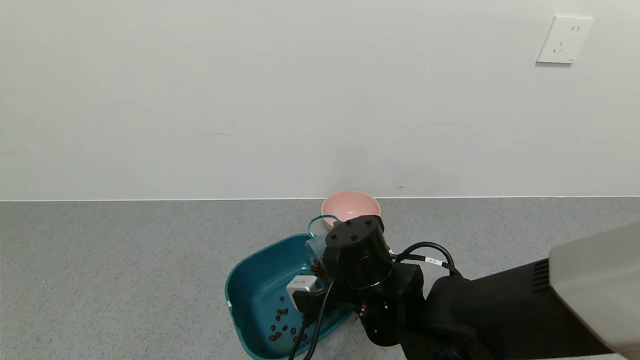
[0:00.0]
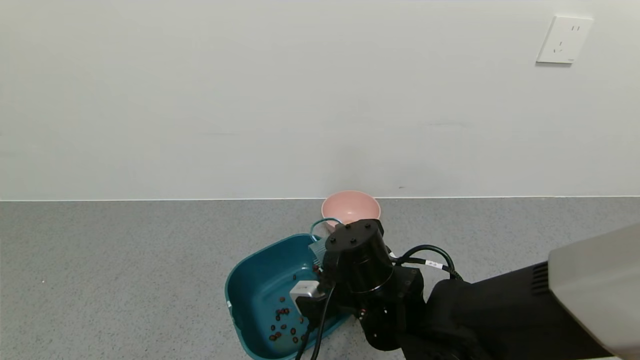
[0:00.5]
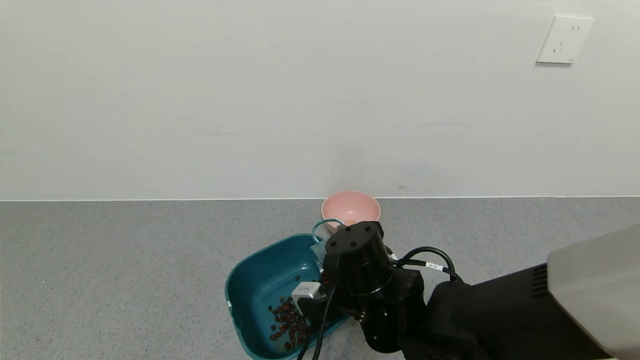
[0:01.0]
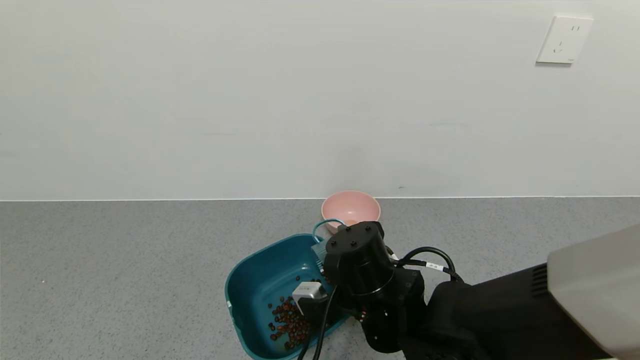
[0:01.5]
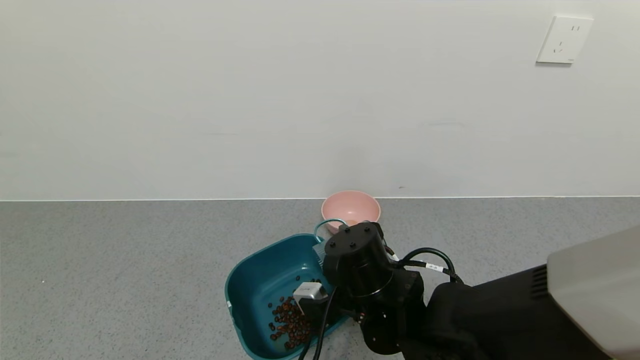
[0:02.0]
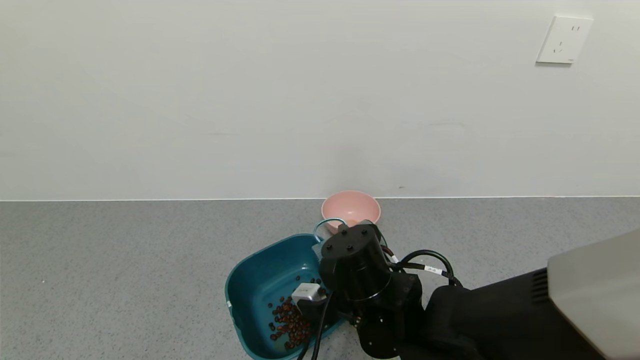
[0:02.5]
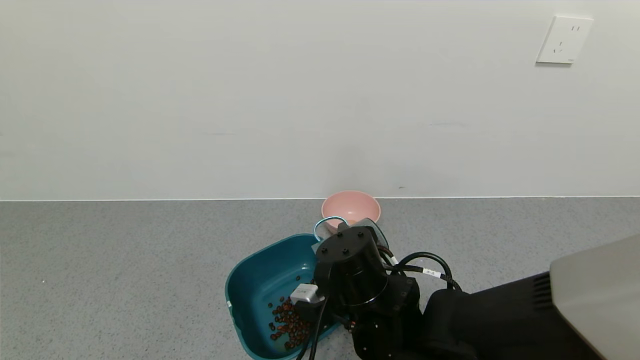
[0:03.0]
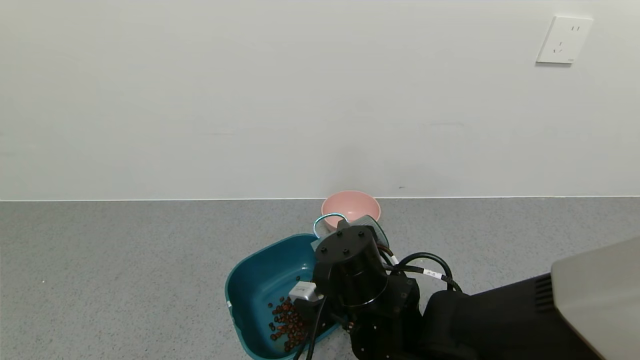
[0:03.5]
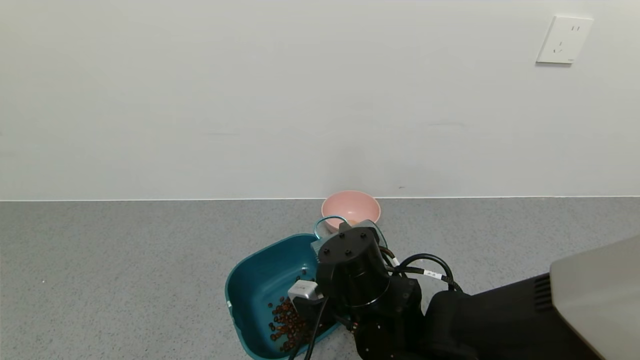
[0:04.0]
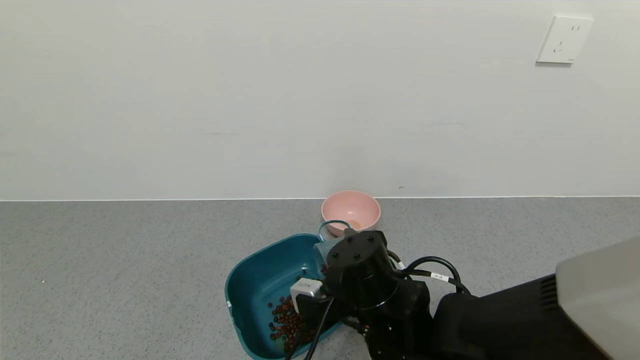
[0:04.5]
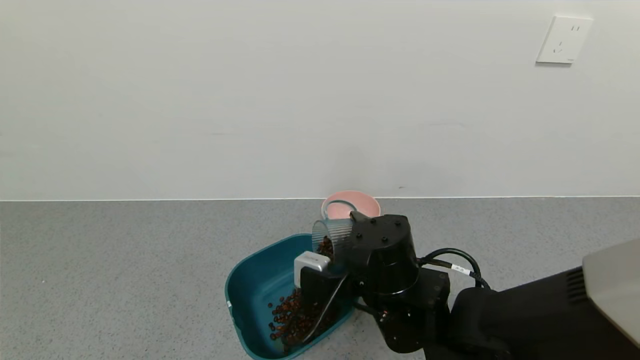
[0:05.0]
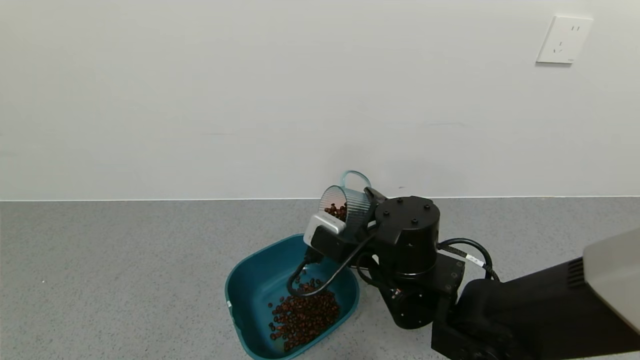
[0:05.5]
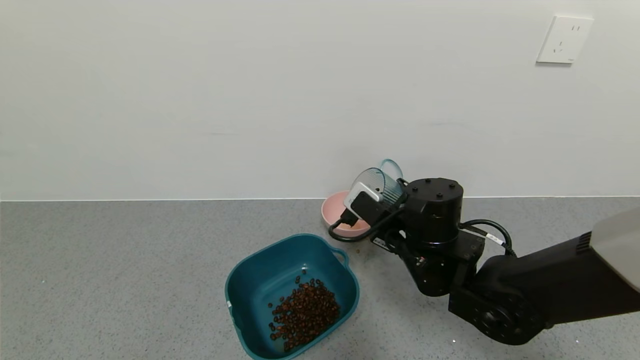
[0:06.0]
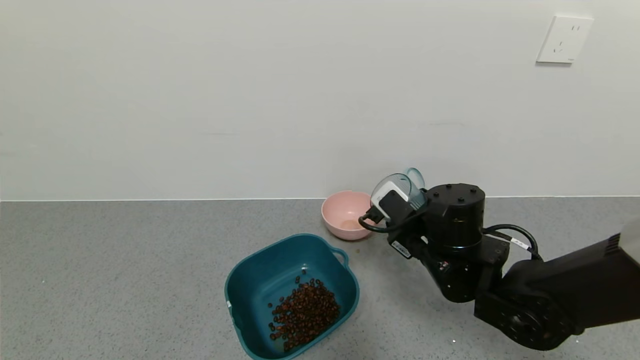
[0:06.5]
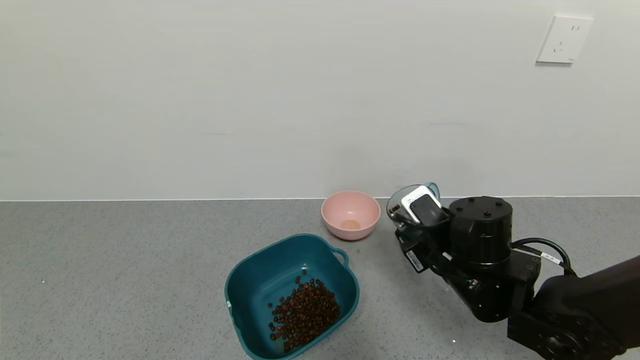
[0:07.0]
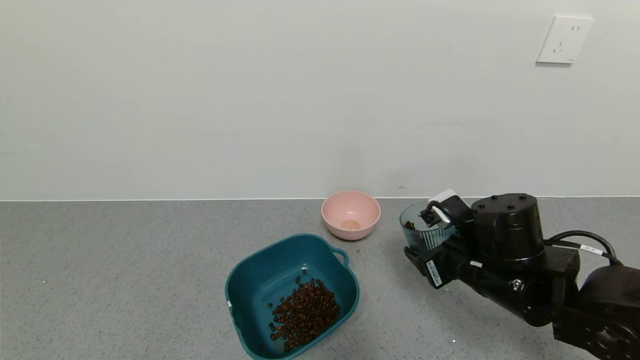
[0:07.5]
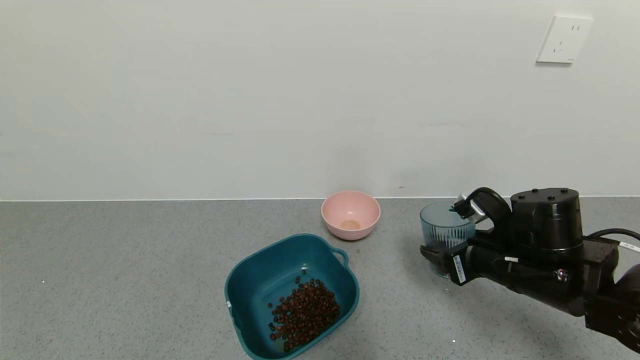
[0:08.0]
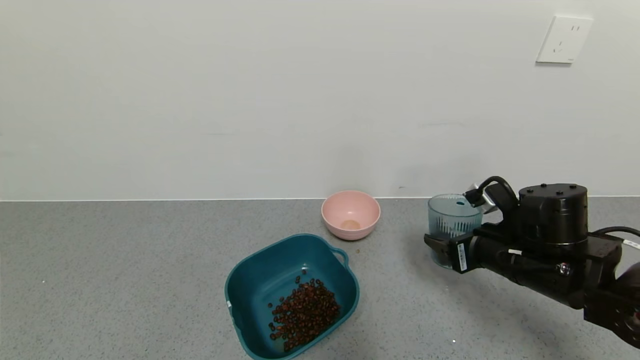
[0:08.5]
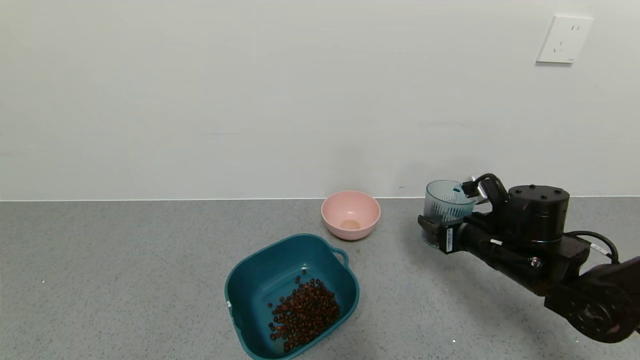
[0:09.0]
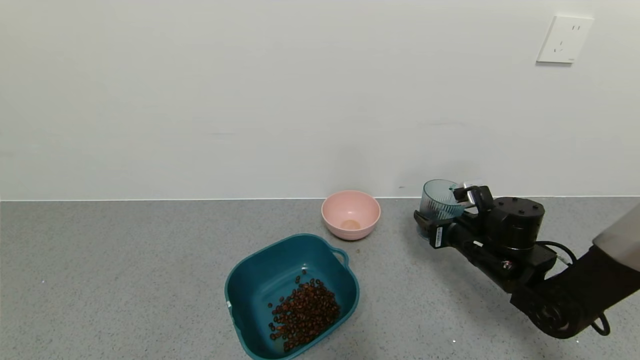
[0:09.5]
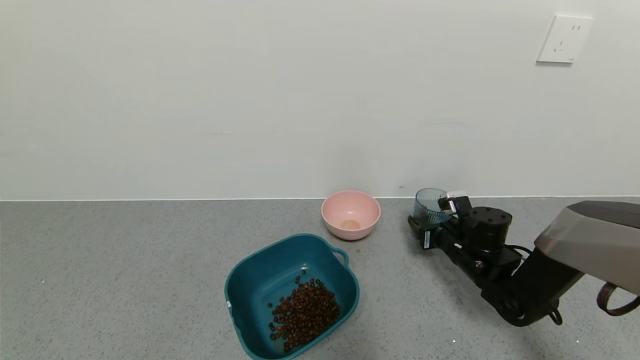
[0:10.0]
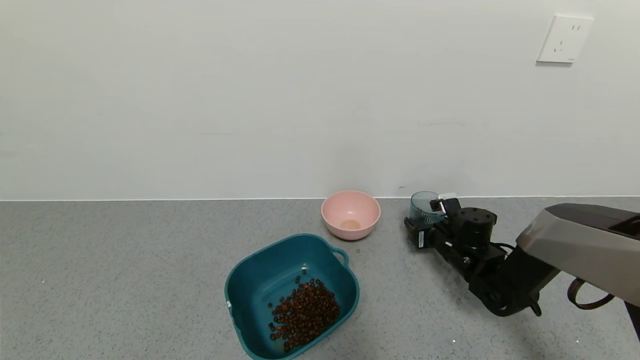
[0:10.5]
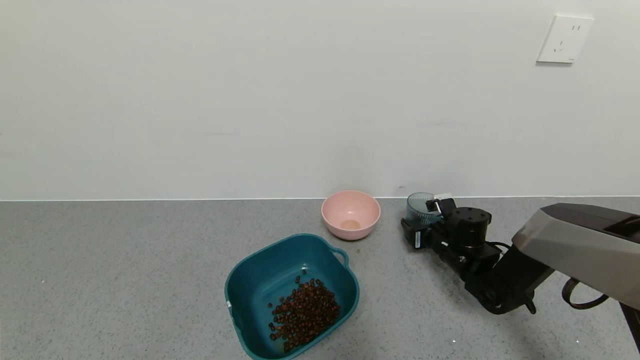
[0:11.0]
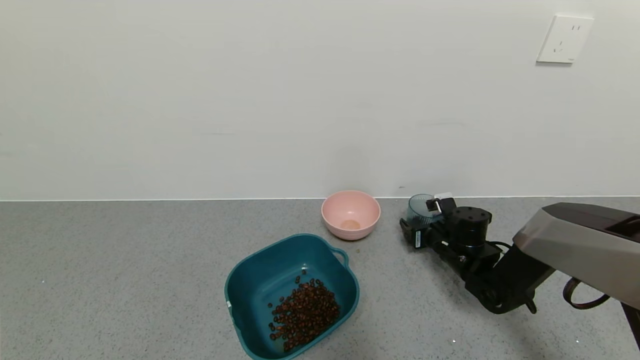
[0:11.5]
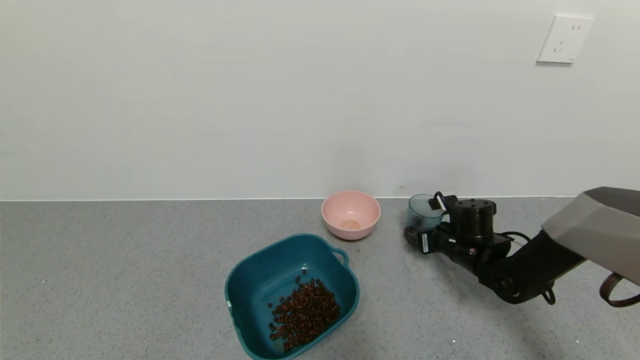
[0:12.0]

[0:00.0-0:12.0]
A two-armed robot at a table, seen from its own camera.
Task of the whole recording: use a gripper to pick up the cup and pour the solid into a bowl or tray.
Step, 0:00.0 to 0:06.5: Pour the coffee beans into the green bowl with the right gripper.
0:00.0 to 0:04.0: There are only small adjustments of the grippers.
0:04.0 to 0:06.0: The right gripper travels to the right and forward by about 10 cm.
0:06.0 to 0:08.0: The right gripper travels to the right by roughly 10 cm.
0:08.0 to 0:10.0: The right gripper moves forward and downward, about 15 cm.
0:10.0 to 0:12.0: The right gripper opens up.

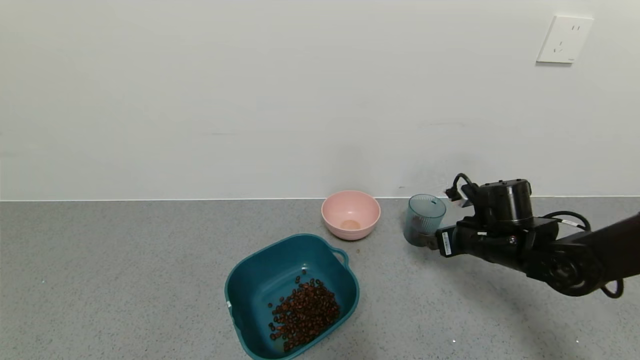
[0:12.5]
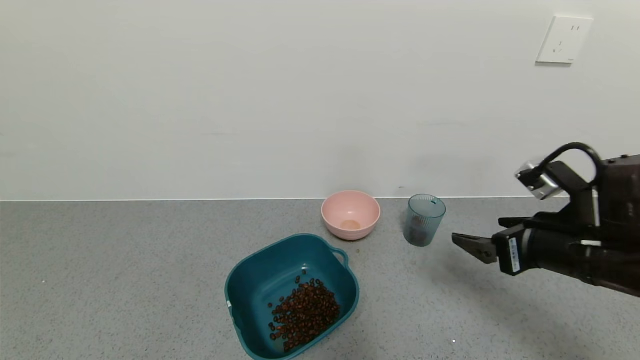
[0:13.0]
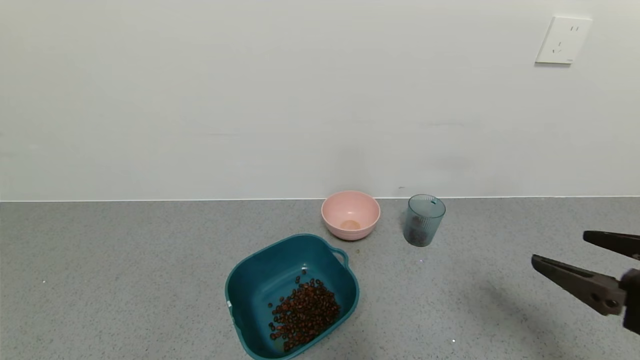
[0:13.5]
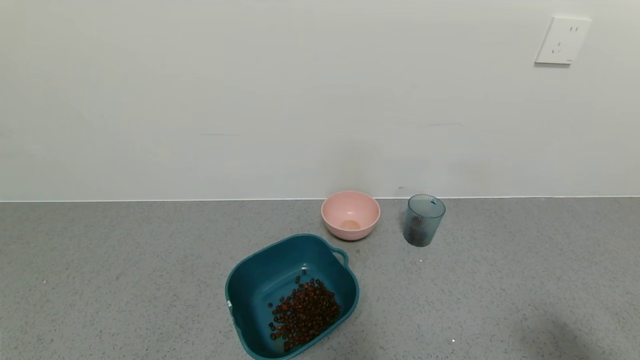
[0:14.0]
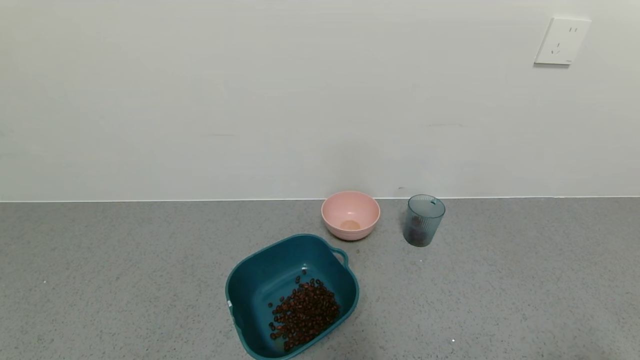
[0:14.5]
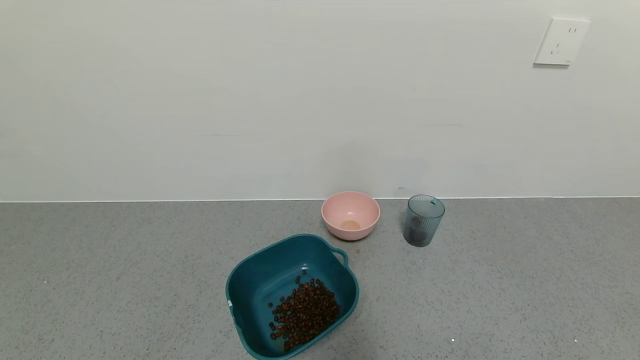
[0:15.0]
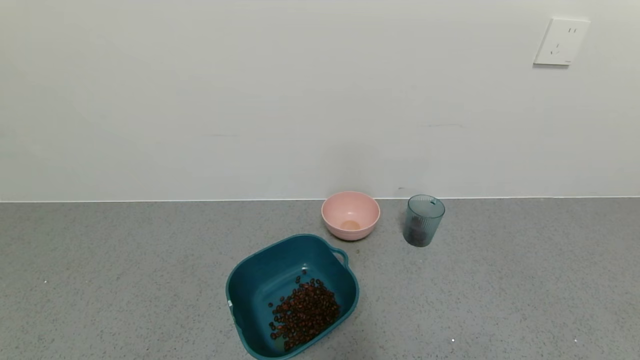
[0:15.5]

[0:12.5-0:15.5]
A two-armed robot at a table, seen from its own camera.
Task of the whole recording: use a gripper to pick up the cup and pour the solid into a bowl or tray.
0:12.5 to 0:14.0: The right gripper is displaced backward by roughly 30 cm.
0:14.0 to 0:15.5: The right gripper heads downward and backward, covering about 15 cm.
